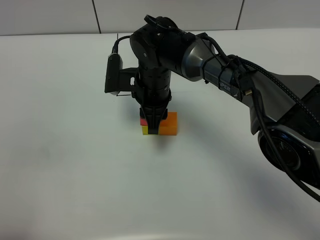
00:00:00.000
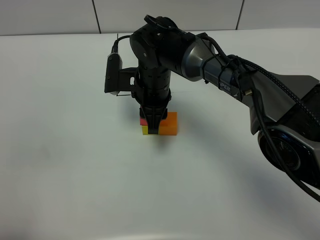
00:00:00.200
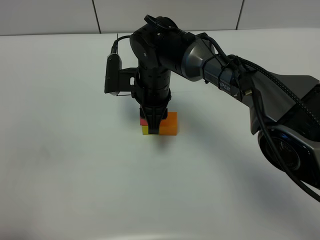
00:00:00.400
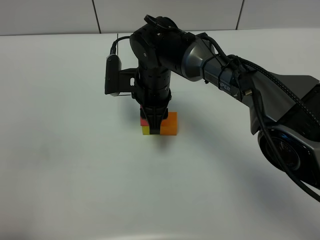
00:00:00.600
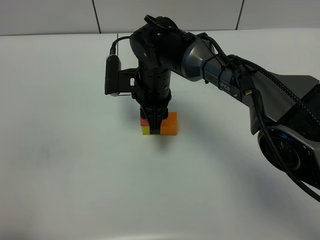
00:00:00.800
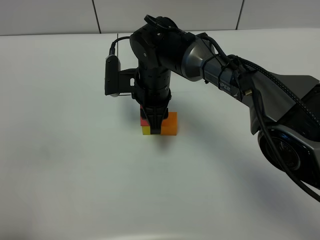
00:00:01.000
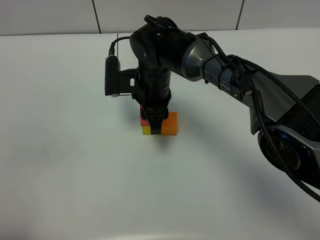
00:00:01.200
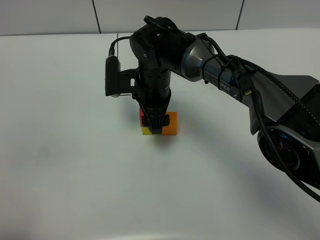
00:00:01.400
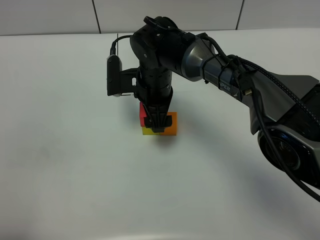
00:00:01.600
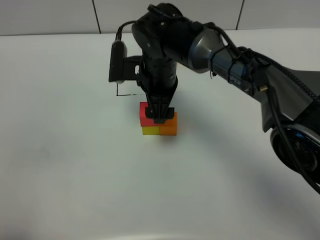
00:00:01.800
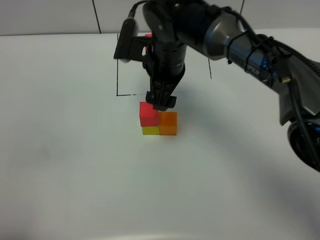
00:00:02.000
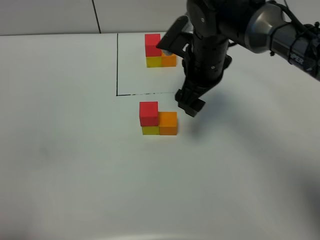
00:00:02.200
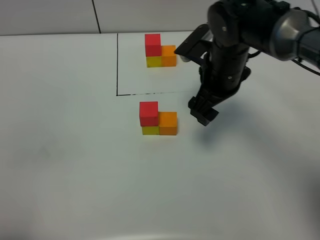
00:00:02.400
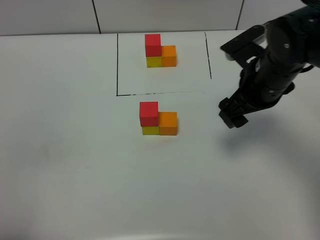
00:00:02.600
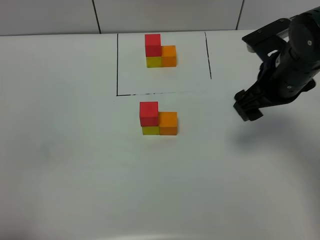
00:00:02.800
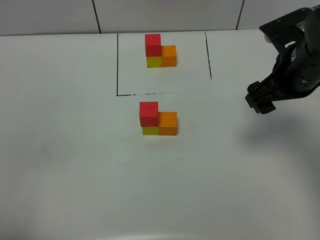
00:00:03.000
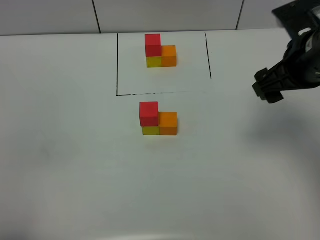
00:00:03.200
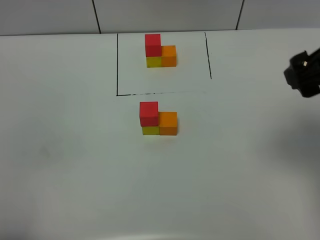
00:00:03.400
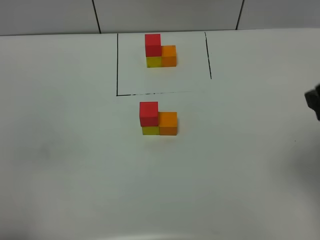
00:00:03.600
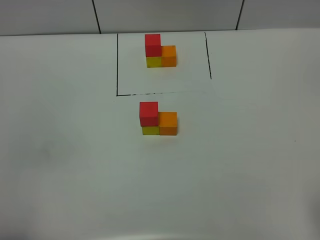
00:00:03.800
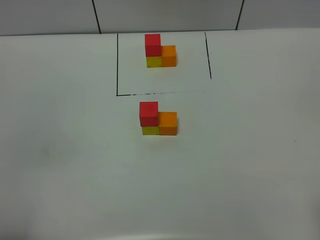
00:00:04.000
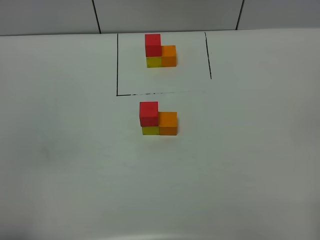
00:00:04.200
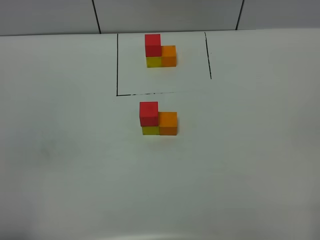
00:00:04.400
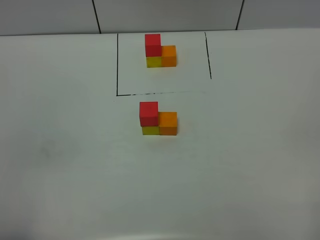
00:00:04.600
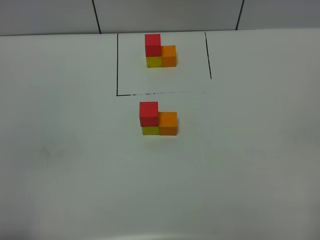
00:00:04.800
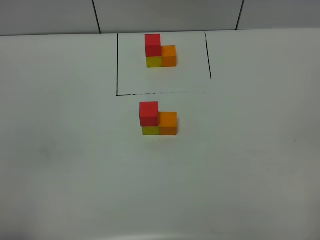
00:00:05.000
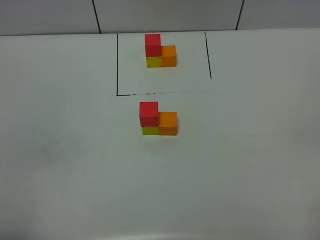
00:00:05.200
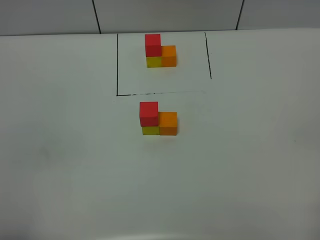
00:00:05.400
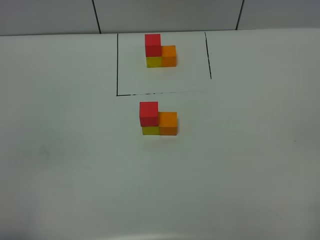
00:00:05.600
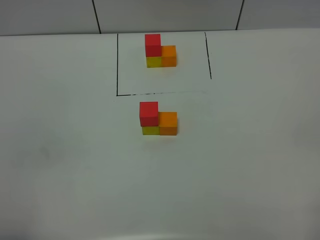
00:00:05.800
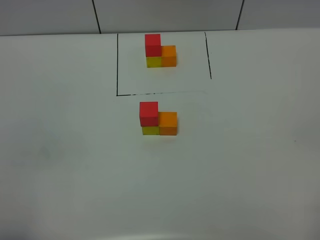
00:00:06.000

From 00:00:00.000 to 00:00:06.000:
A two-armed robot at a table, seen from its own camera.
Task of the whole recording: According to the building block template in front, assemble the scattered blocks together.
From 00:00:00.000 to 00:00:01.600: The right gripper opens up.
From 00:00:01.600 to 00:00:03.000: The right gripper shifts roughly 25 cm to the right and upward.
From 00:00:03.000 to 00:00:04.400: The right gripper travels backward by approximately 30 cm.
From 00:00:04.400 to 00:00:06.000: Neither gripper changes place.
